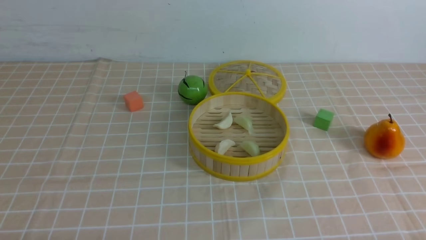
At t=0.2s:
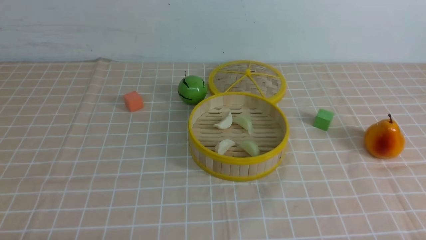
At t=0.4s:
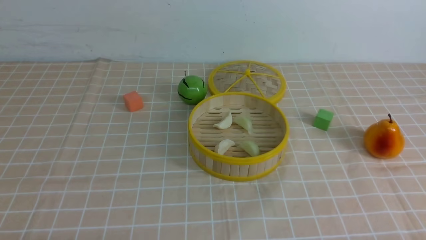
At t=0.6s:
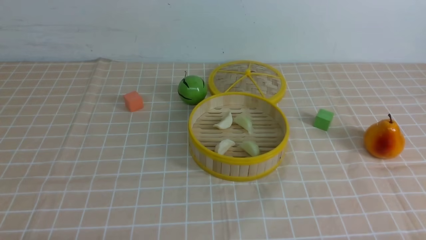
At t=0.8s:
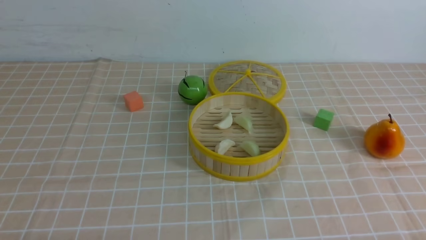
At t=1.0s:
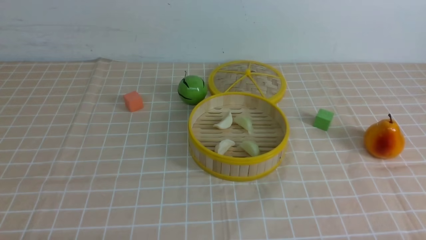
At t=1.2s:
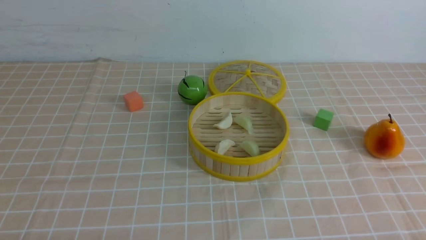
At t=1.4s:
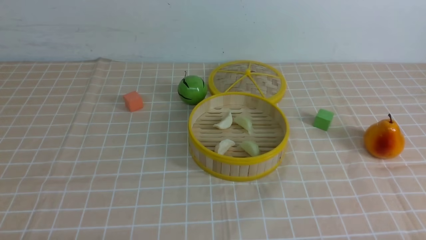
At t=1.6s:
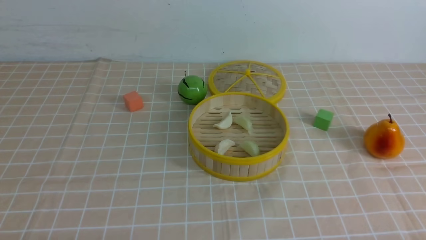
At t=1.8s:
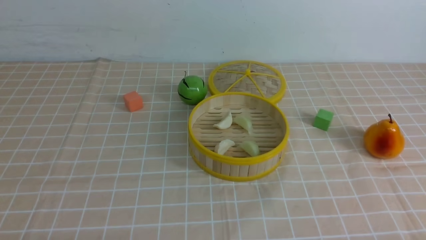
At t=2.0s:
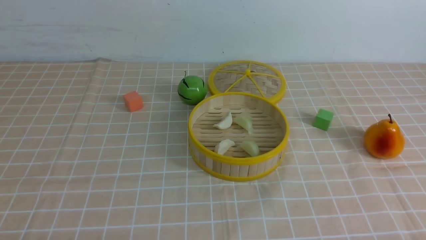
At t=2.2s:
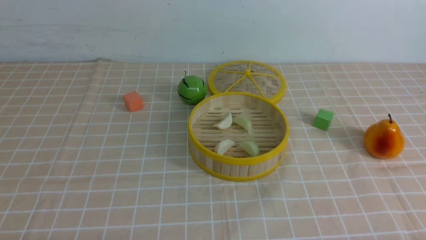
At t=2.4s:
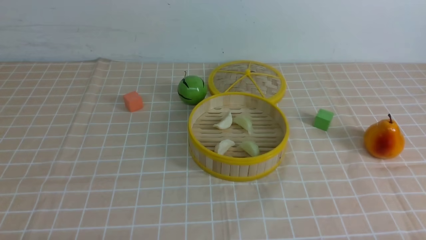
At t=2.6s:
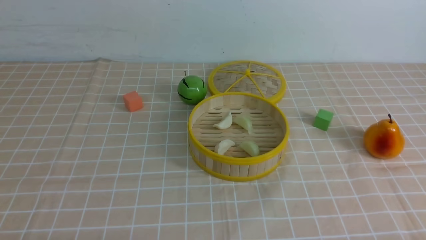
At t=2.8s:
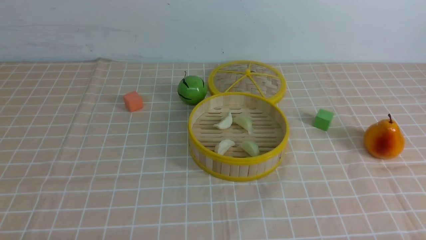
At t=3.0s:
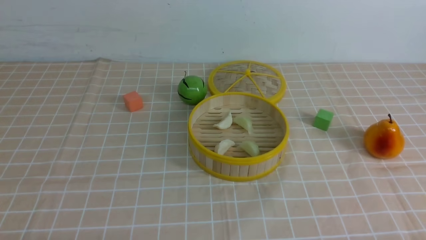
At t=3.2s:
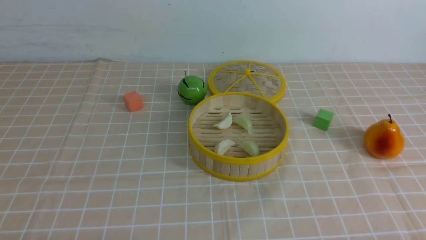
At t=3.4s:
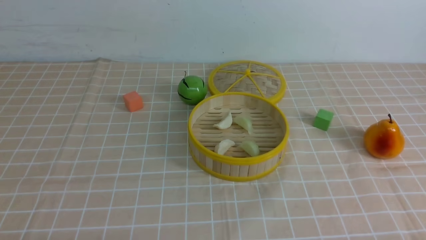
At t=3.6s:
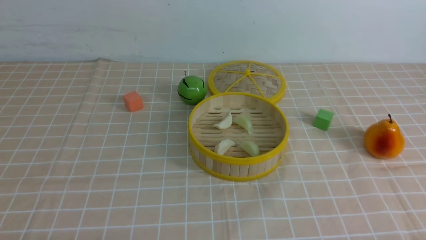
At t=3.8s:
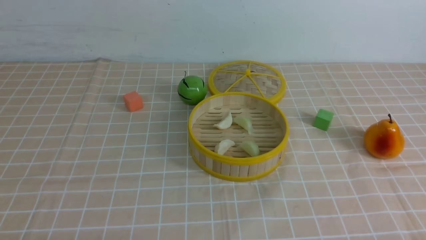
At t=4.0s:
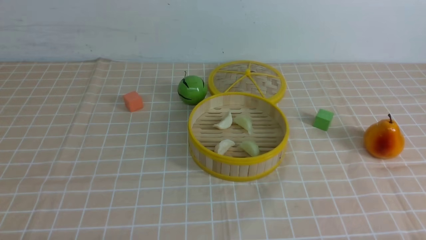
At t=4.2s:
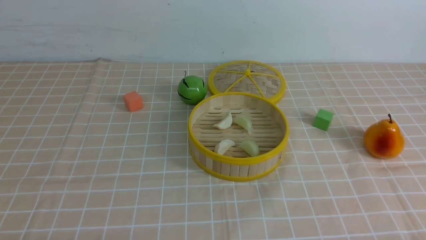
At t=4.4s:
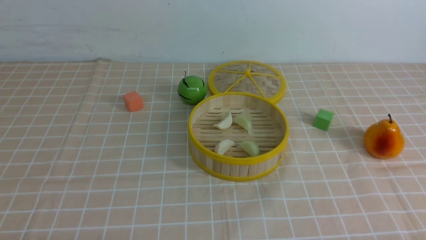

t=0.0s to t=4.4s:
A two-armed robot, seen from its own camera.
Task of the whole recording: put the dumplings into the steamer on the table with the brown tablecloth.
t=1.4s to t=4.4s: Both grippers stay about where they are.

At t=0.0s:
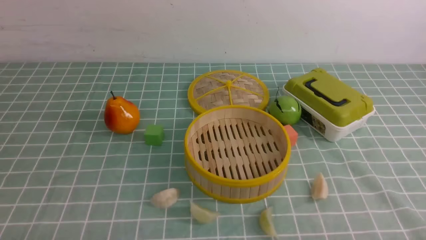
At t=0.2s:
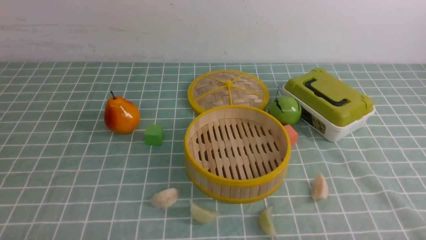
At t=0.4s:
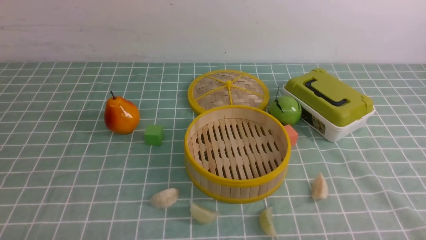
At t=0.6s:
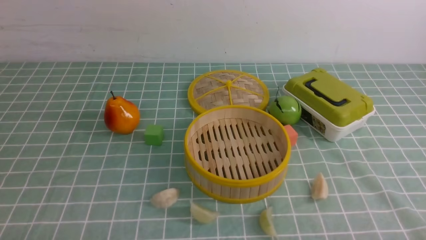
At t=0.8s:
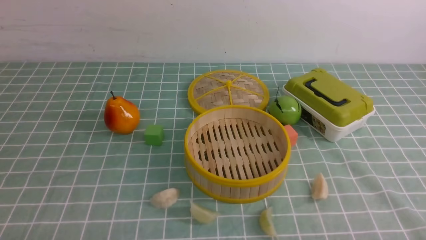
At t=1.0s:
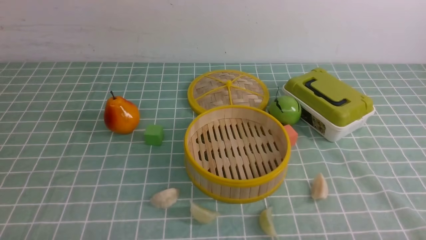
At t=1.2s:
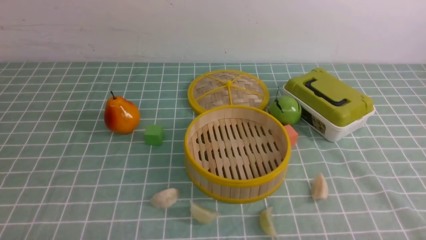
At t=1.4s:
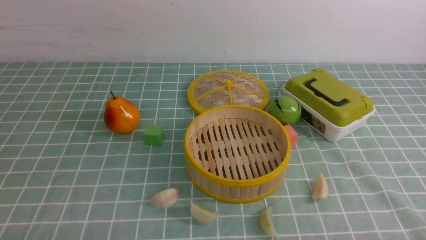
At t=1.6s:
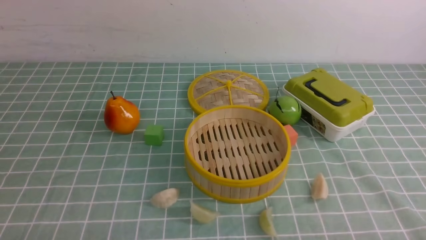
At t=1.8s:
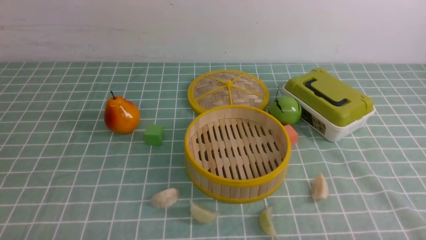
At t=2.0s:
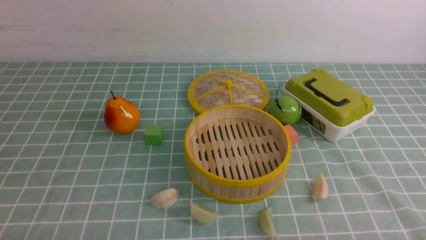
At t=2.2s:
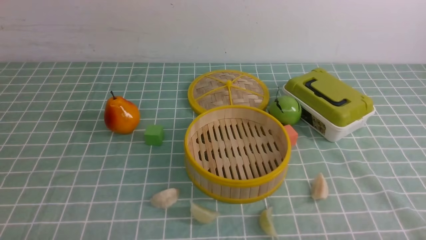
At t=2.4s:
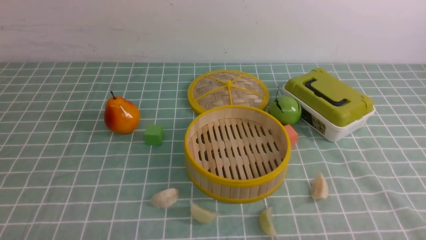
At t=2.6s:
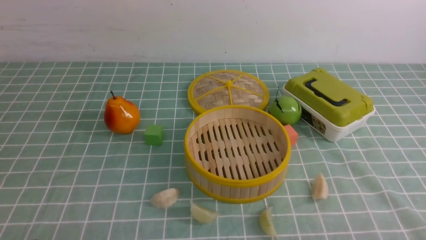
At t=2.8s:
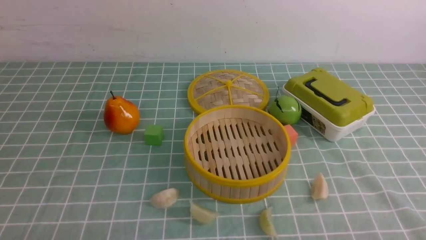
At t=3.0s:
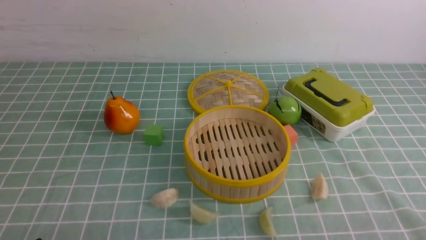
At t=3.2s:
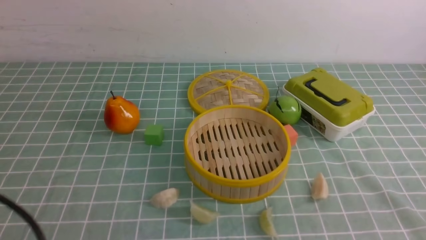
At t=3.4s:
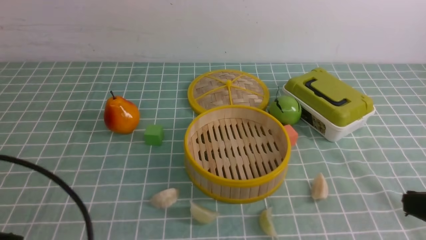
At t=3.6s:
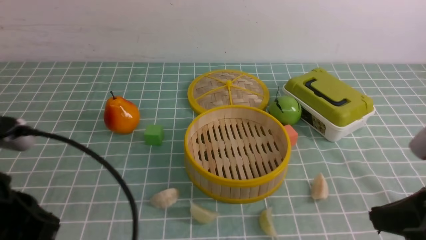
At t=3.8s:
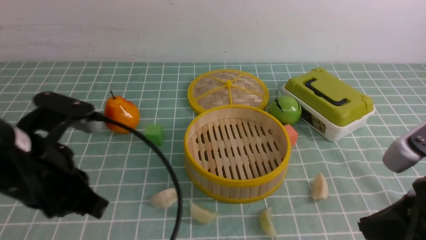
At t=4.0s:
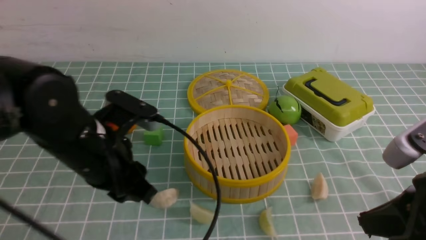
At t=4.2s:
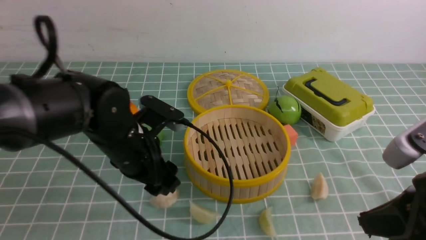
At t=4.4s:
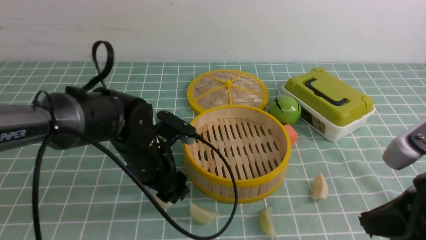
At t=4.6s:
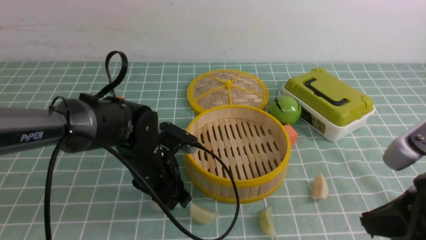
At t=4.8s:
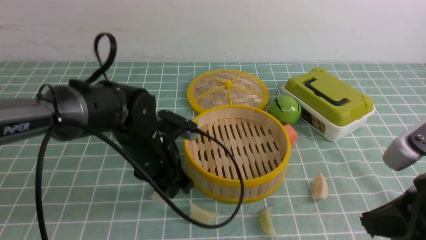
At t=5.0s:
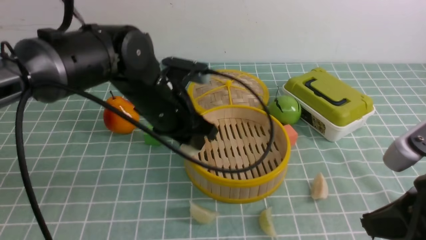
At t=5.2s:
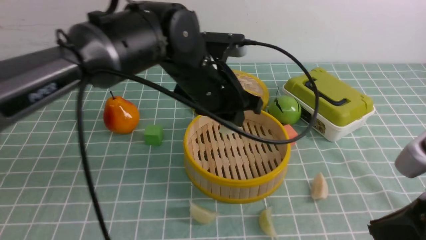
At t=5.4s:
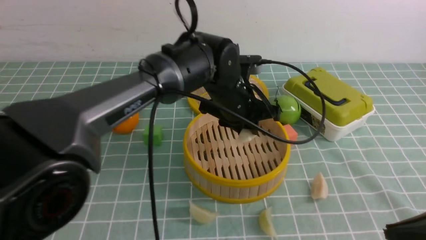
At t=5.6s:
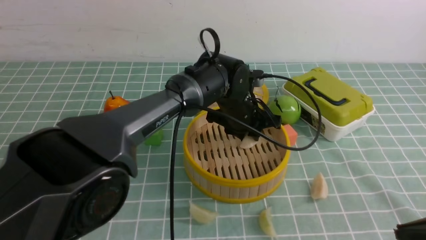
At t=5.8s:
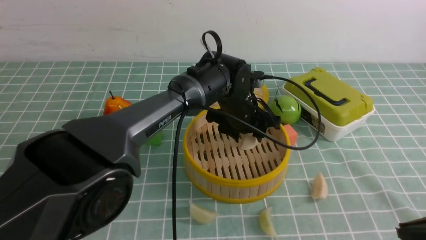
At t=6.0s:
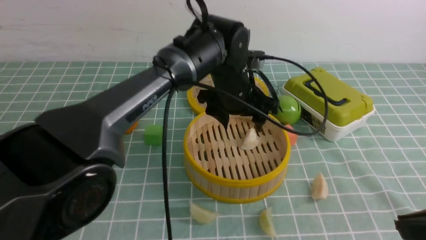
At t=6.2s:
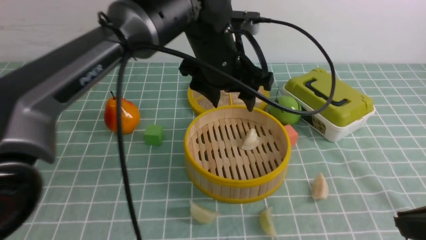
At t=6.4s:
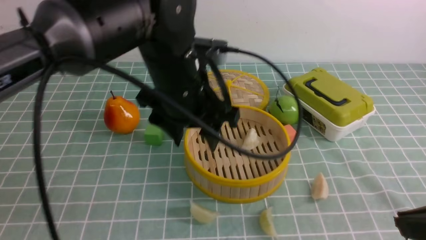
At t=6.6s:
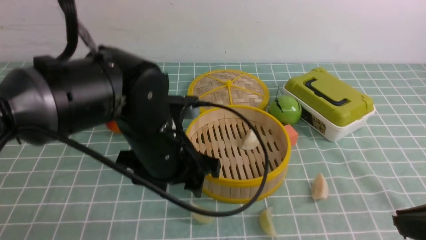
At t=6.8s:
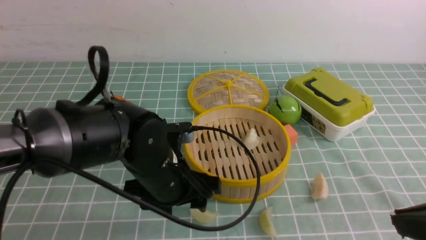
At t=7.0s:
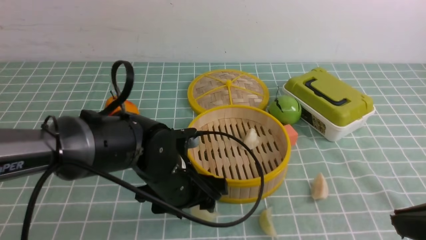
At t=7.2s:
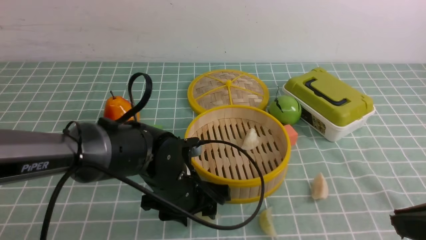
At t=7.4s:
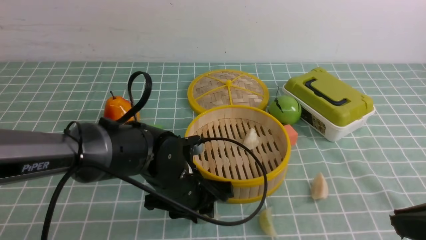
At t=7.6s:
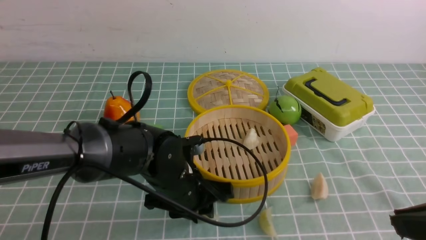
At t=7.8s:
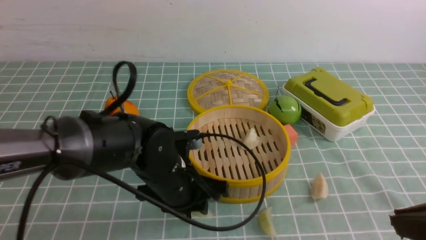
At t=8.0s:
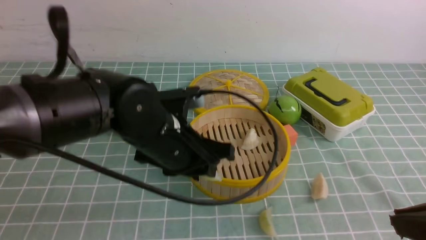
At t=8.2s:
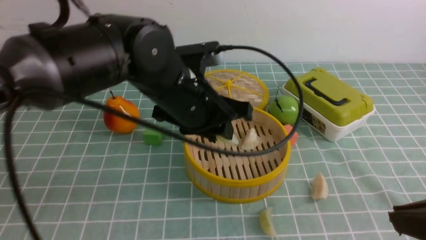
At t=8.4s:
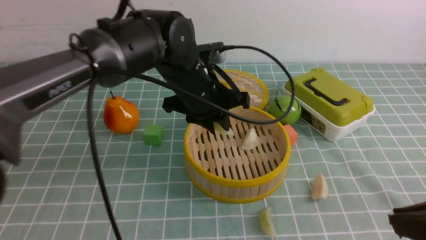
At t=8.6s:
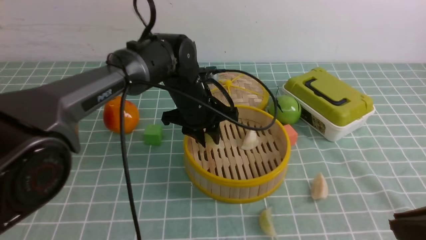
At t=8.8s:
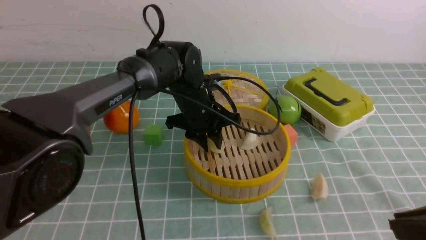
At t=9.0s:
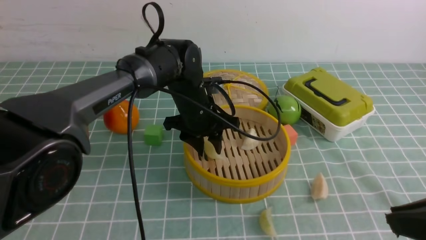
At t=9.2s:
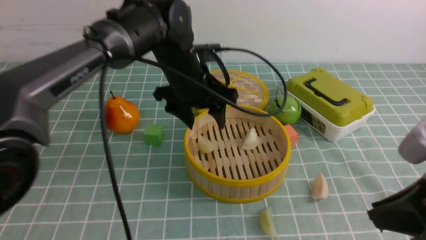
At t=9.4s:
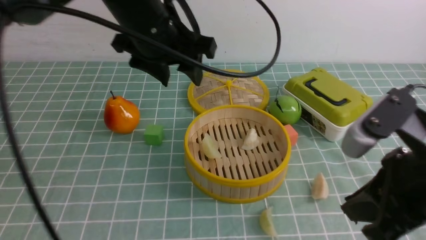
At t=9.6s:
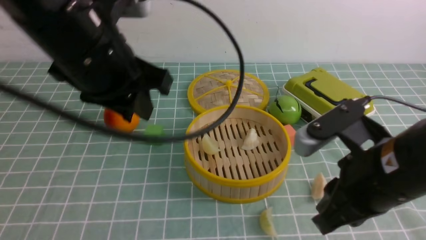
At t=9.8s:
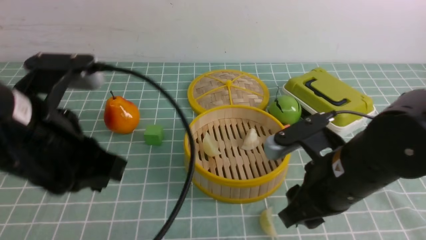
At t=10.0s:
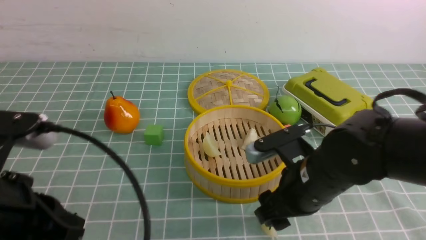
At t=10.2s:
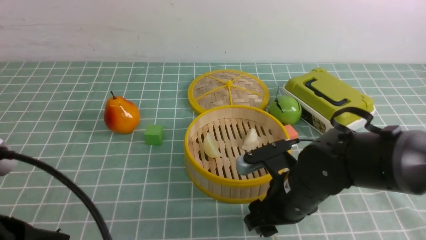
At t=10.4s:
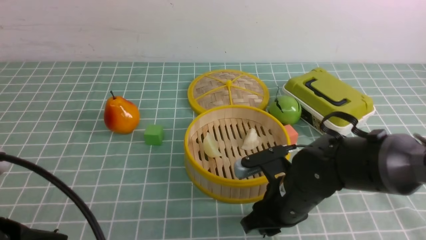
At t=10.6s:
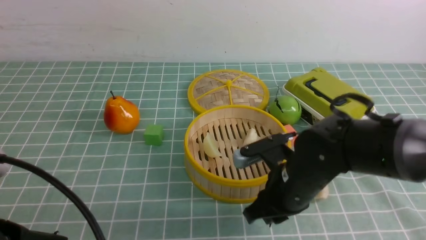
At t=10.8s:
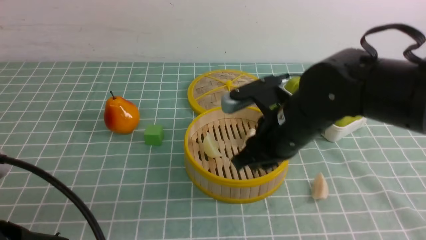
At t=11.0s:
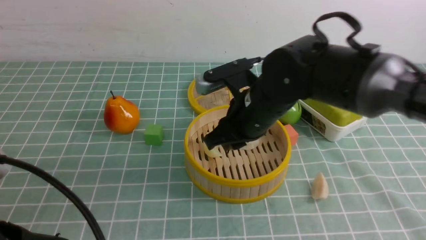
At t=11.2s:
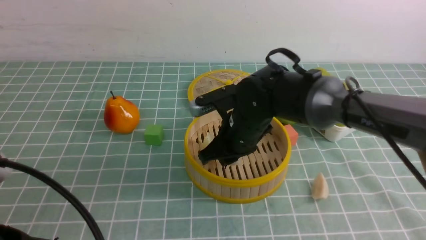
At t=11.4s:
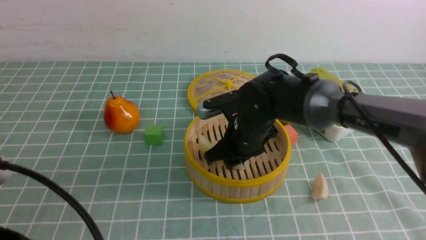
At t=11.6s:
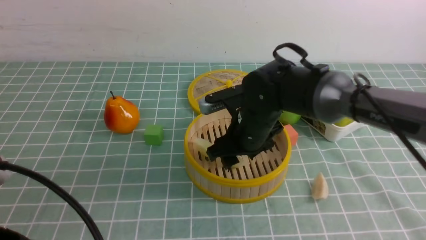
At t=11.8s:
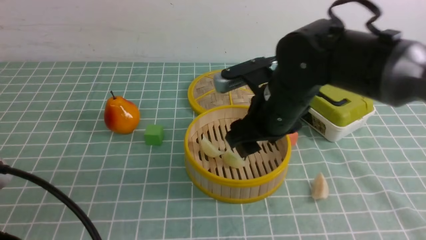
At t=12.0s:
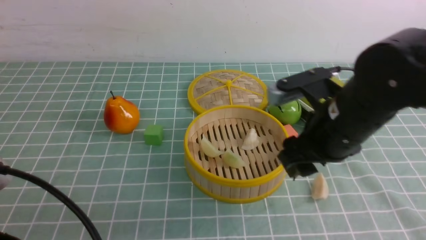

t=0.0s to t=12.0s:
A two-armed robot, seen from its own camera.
Task of the whole recording: put the dumplings into the steamer on the table with the blue tablecloth.
Step, t=0.0s to t=4.4s: use the left arm to grab a dumpling.
Step, t=4.8s to t=5.8s: use the left arm to put the dumpling into the steamer.
Step, t=6.2s to t=7.6s: use the left arm to grab a dumpling.
Step, t=7.8s to t=9.2s: use the left arm to put the dumpling into the steamer.
Step, t=9.4s to t=10.4s: use the right arm to grab a dumpling.
Step, t=10.6s to t=11.6s: use the right arm to put the dumpling into the steamer.
t=3.0s to t=4.4s: The right gripper goes about 15 cm forward, upward and to the left. Meanwhile the left gripper travels forward and to the right by about 30 cm, and opens up.
t=4.4s to t=6.0s: The right gripper ends up approximately 5 cm from where it was. Meanwhile the left gripper goes some 20 cm to the right, upward and forward, and closes, then reopens.
t=6.0s to t=7.6s: The left gripper moves backward, downward and to the left, roughly 20 cm, and closes its fingers.
t=7.6s to t=9.0s: The left gripper goes roughly 15 cm forward and upward.
t=9.0s to t=10.4s: The right gripper goes approximately 25 cm downward, forward and to the left, and opens its fingers; the left gripper travels backward and to the left by roughly 35 cm, and closes.
t=10.4s to t=12.0s: The right gripper swings up and down, about 10 cm each way, with 2 reversals.
